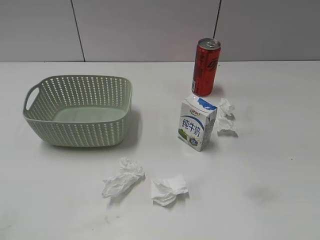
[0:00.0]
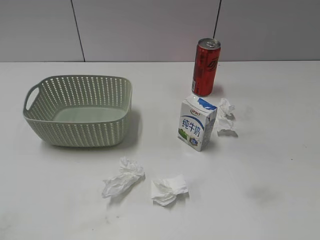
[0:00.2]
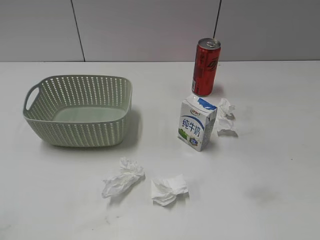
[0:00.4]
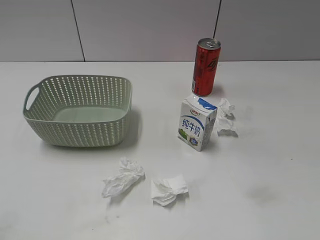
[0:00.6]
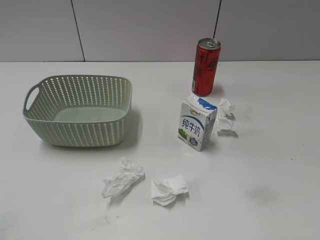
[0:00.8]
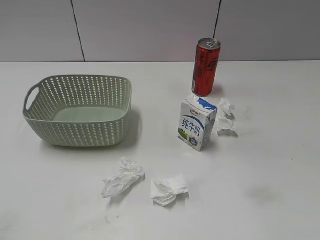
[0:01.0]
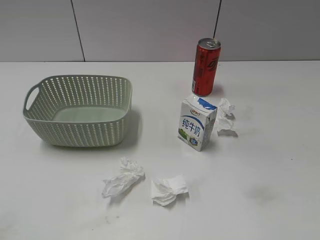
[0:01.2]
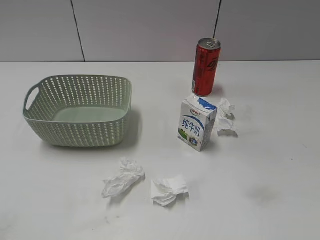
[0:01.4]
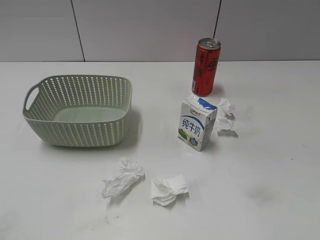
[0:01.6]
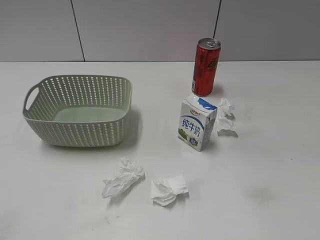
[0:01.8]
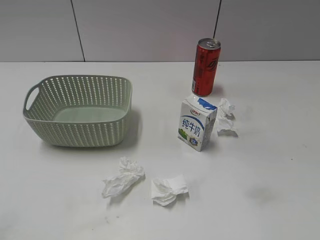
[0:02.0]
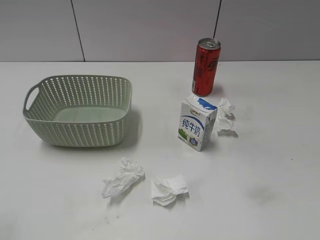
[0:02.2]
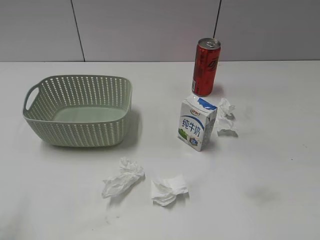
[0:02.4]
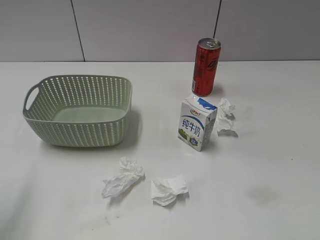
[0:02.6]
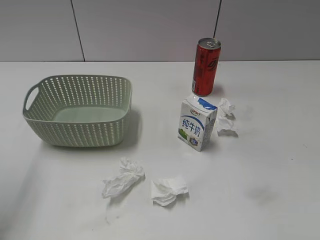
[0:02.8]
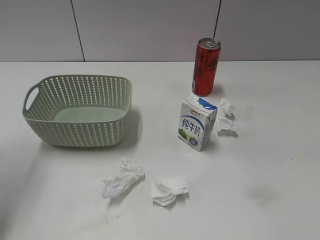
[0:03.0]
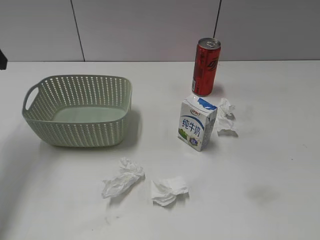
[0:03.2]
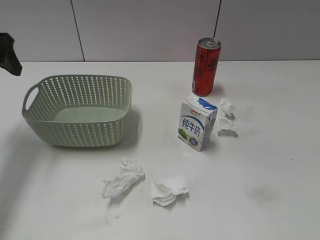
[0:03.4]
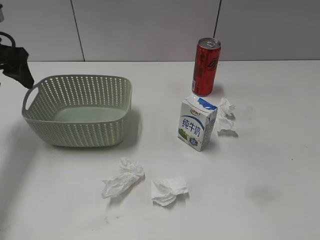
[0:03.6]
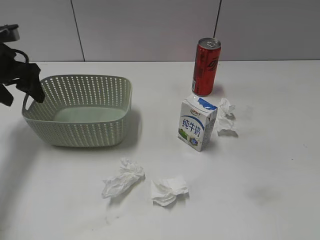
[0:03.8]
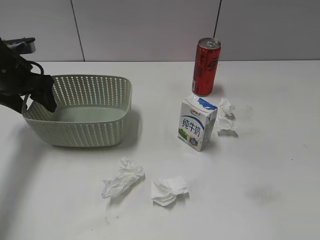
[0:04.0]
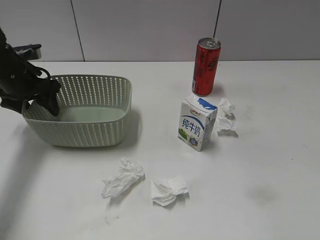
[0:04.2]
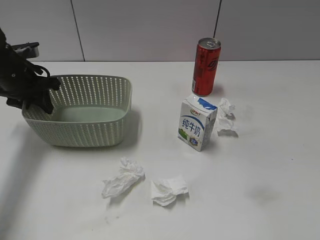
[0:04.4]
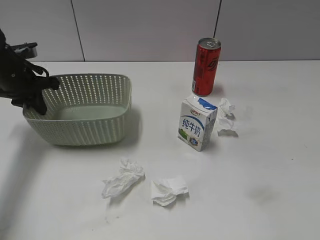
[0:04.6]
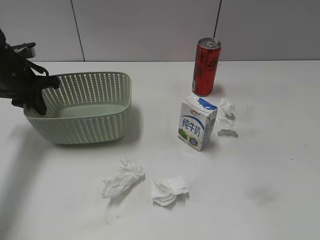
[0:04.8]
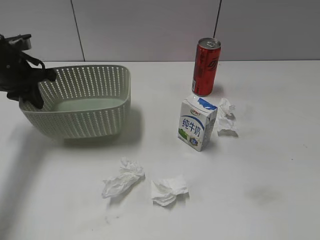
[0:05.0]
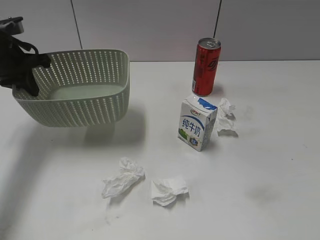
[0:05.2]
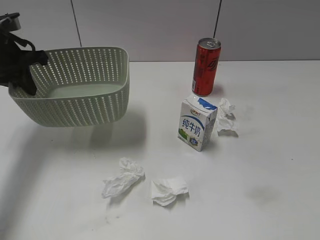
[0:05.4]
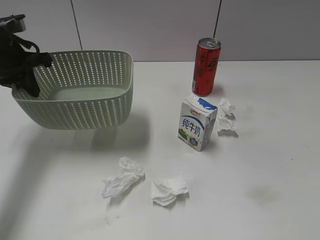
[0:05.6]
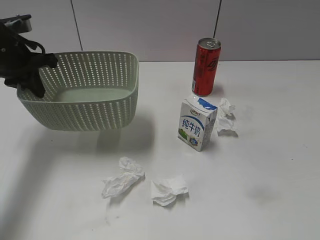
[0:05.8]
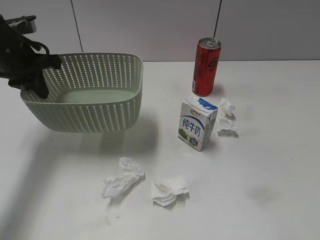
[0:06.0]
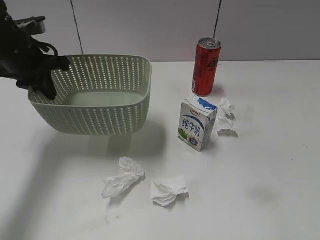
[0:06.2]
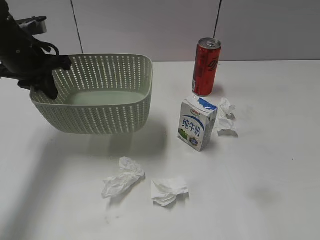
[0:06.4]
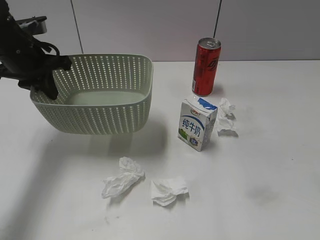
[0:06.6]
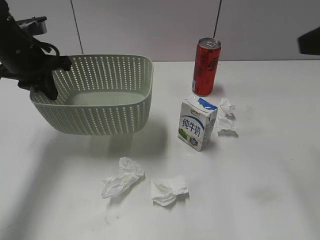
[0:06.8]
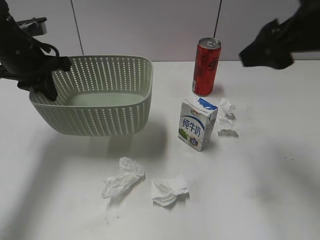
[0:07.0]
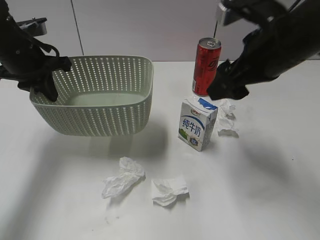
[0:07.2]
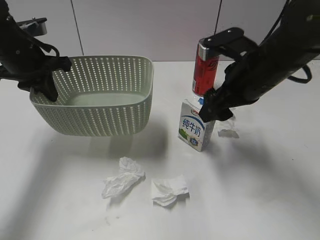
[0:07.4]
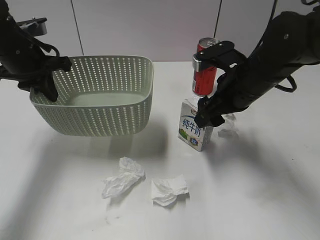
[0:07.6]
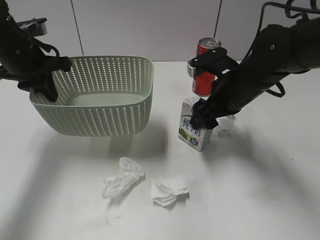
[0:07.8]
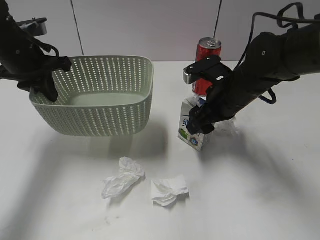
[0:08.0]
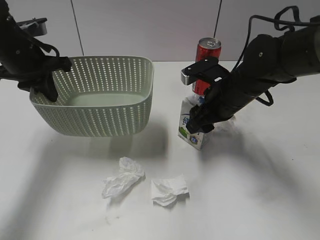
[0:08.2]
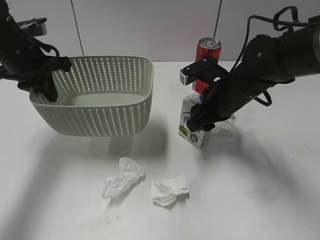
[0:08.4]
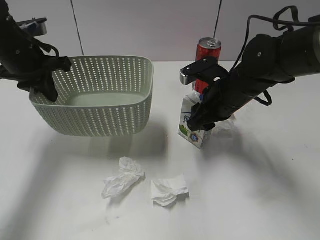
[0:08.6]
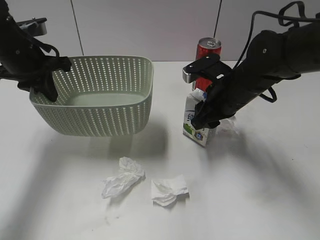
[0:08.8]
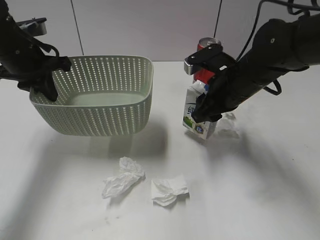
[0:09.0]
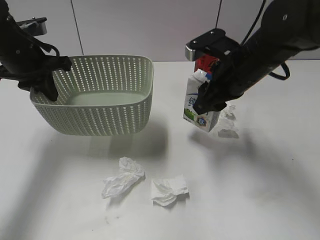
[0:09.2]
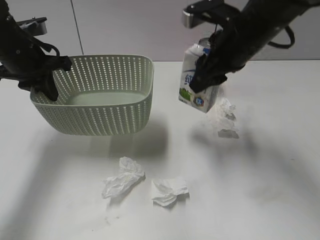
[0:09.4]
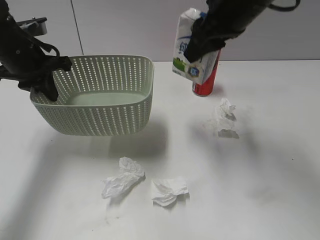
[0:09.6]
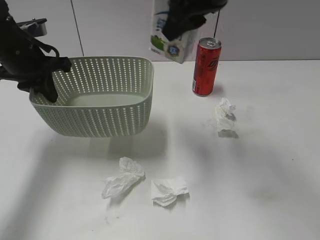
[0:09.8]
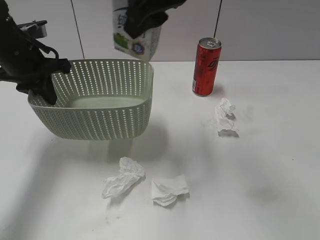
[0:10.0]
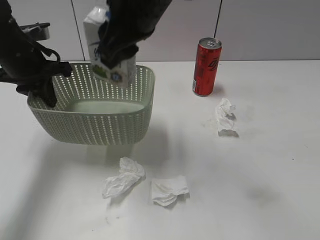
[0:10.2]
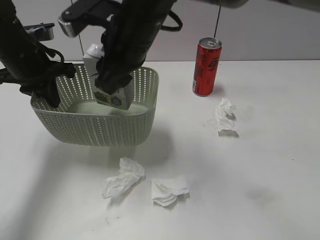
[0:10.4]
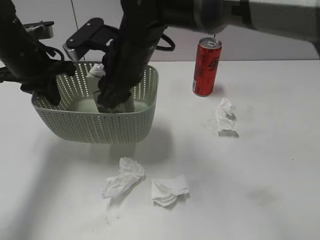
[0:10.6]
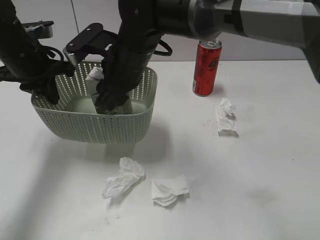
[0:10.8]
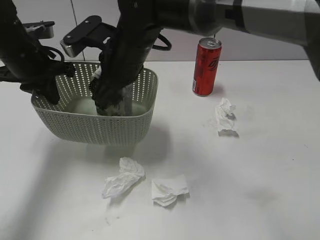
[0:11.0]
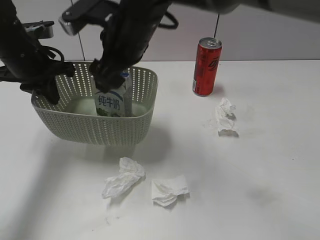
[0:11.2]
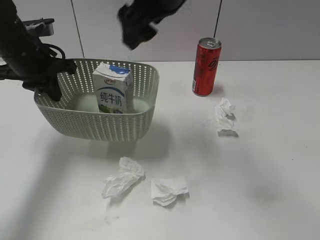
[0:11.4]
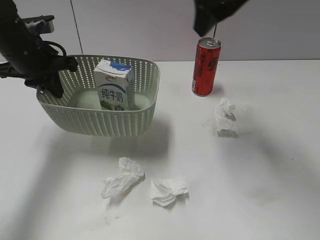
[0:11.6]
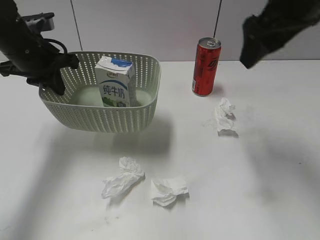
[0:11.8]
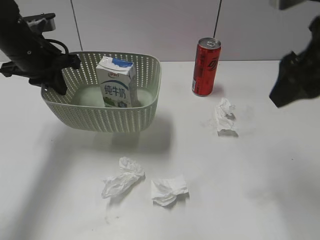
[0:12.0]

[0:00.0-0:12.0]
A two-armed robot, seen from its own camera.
Step, 0:03.2 to 0:04.6: Grasp the basket with left gripper.
Step, 0:04.8 to 0:06.2: Lift the basket with left gripper.
Step, 0:06.4 to 0:08.4: Grasp the milk with right gripper.
Step, 0:08.6 to 0:11.4: Place the milk in the basket with right gripper.
0:01.6 to 0:03.0: The left gripper is displaced forward by roughly 30 cm, and opens up.
0:03.0 to 0:04.4: The left gripper heads downward and forward, covering approximately 20 cm, and closes.
0:04.4 to 0:06.0: The right gripper ends up approximately 5 cm from where it was. Meanwhile the left gripper travels upward by roughly 5 cm.
0:06.0 to 0:07.6: The right gripper is displaced forward, to the left and downward by approximately 35 cm.
0:07.6 to 0:09.0: The right gripper closes its fingers.
0:09.0 to 0:10.4: The right gripper is displaced to the left by about 20 cm.
0:10.4 to 0:12.0: The right gripper travels to the right and backward by some 25 cm, and opens up.

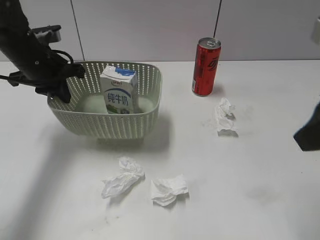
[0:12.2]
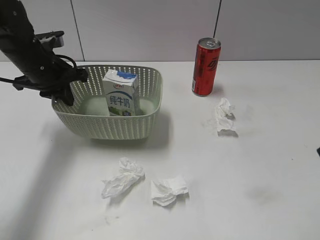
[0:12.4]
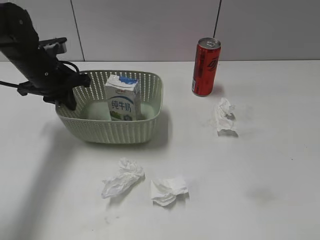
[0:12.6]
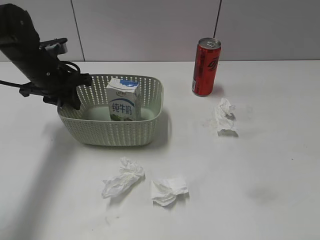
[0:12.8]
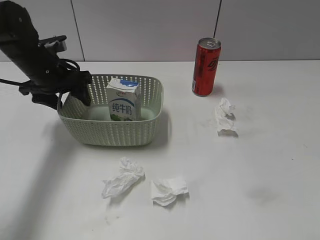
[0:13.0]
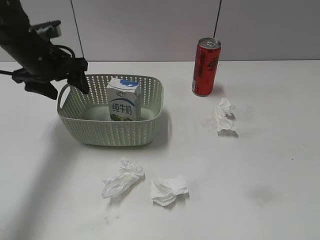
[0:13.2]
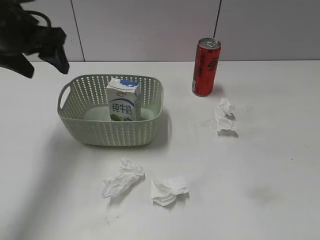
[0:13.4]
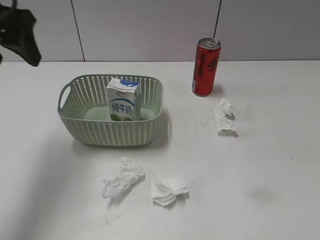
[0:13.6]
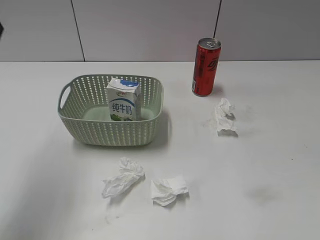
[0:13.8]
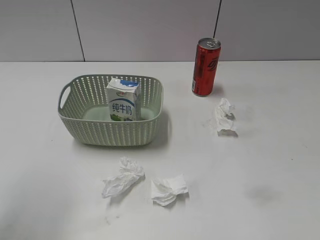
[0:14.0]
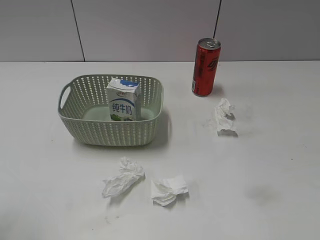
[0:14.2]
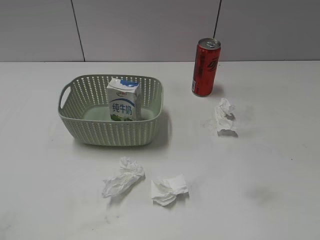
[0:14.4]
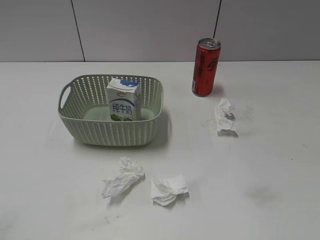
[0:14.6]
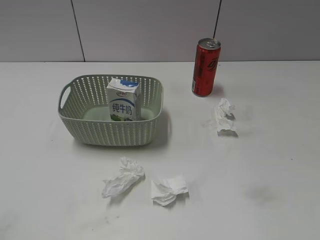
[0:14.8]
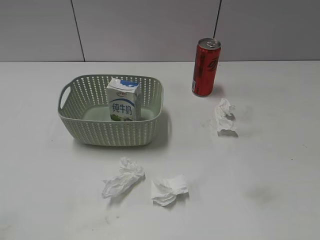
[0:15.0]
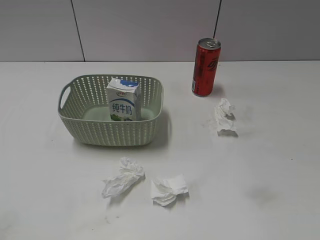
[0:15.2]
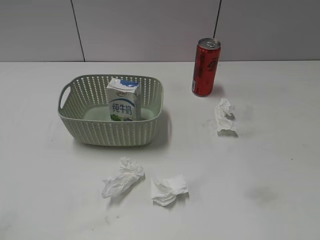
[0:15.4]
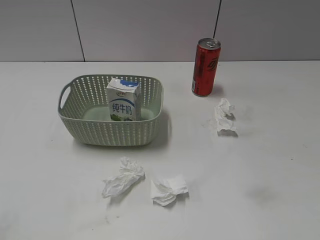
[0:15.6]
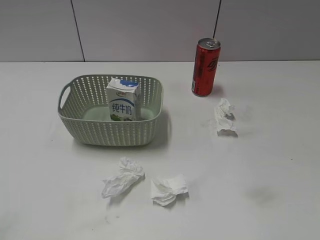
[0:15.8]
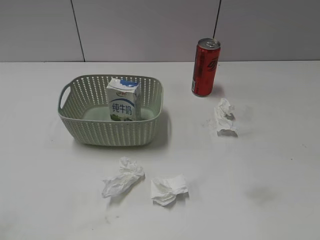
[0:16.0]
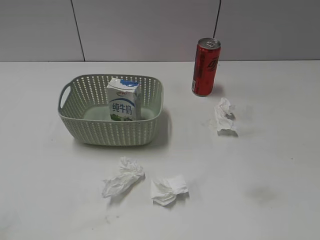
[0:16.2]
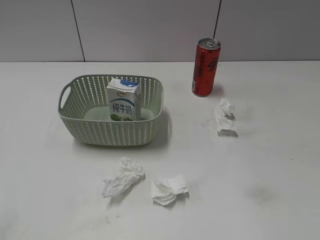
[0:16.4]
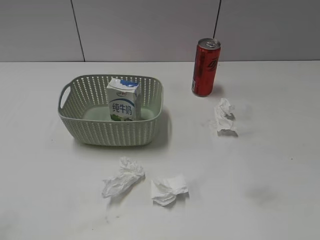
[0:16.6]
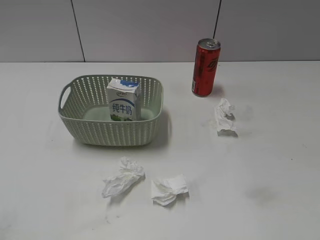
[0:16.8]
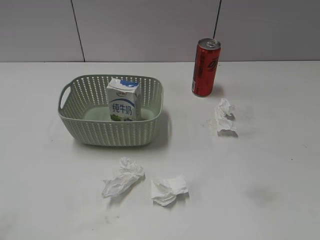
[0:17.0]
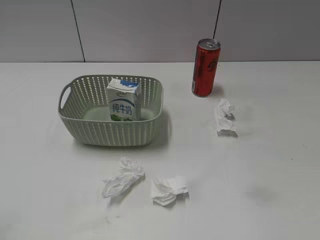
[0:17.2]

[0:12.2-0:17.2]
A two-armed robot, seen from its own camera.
Step, 0:12.2 to 0:13.2: Place the basket on the table with left gripper.
0:12.2 to 0:13.8: The right gripper moves backward, roughly 10 cm. Meanwhile the left gripper shifts approximately 25 cm upward and backward, and opens.
0:13.8 to 0:15.6: The left gripper goes about 25 cm backward and downward.

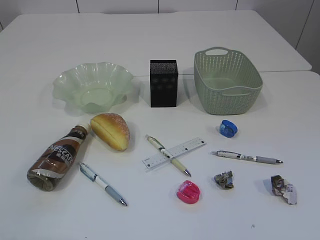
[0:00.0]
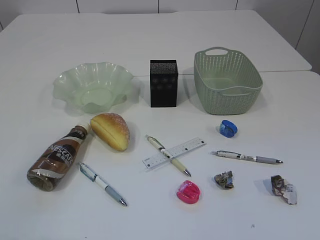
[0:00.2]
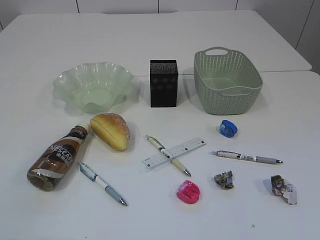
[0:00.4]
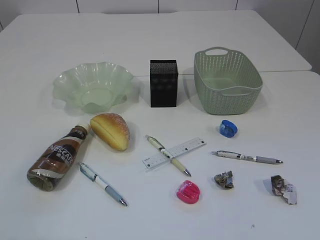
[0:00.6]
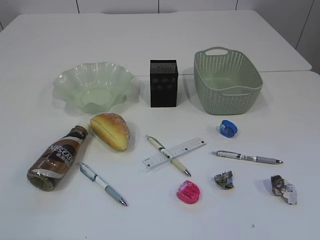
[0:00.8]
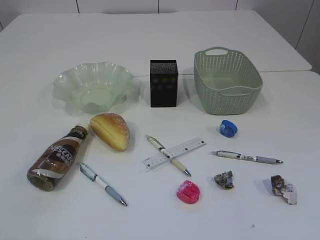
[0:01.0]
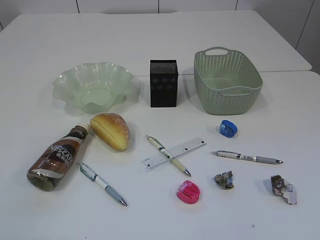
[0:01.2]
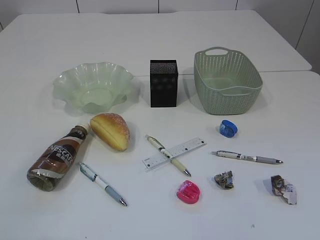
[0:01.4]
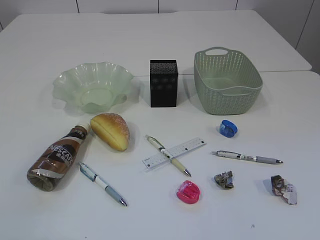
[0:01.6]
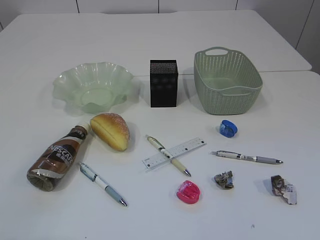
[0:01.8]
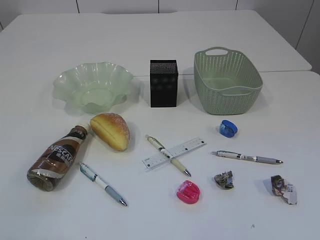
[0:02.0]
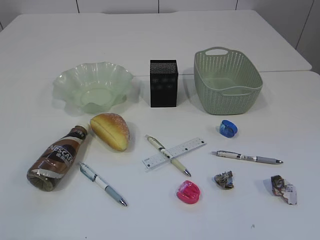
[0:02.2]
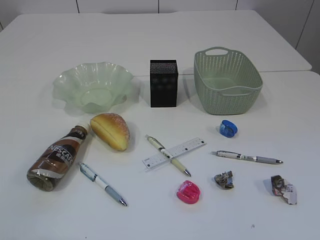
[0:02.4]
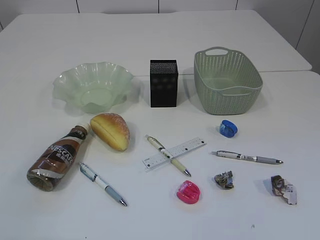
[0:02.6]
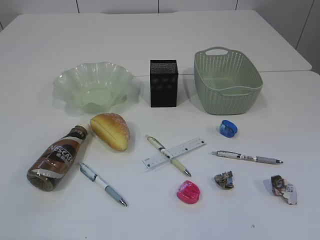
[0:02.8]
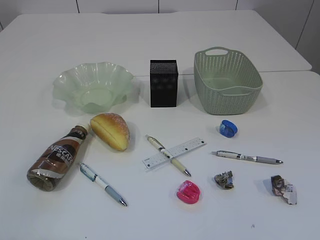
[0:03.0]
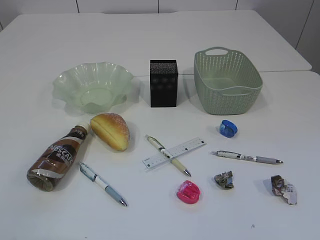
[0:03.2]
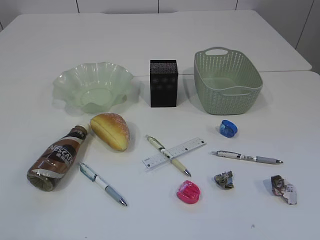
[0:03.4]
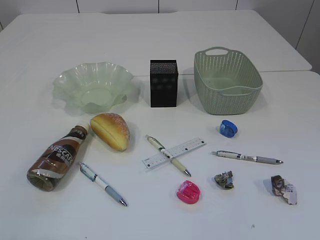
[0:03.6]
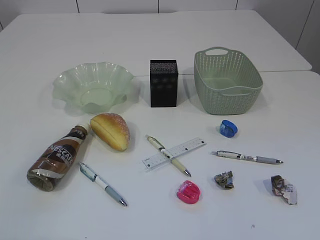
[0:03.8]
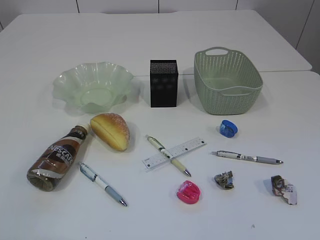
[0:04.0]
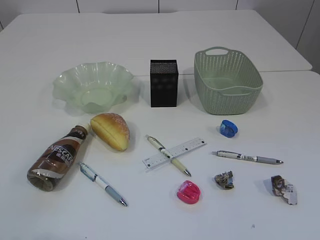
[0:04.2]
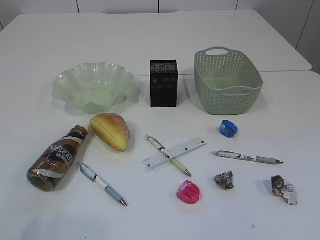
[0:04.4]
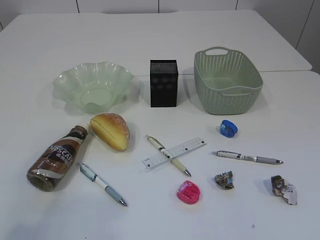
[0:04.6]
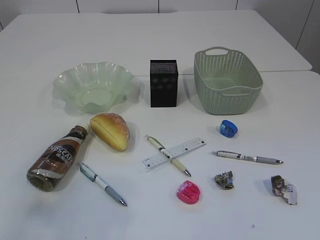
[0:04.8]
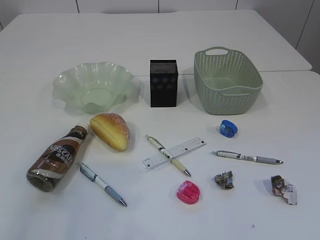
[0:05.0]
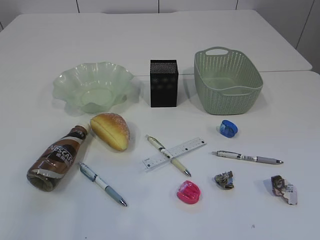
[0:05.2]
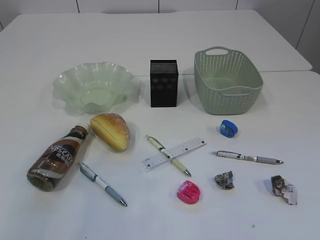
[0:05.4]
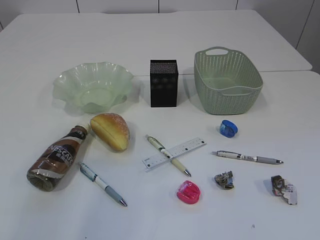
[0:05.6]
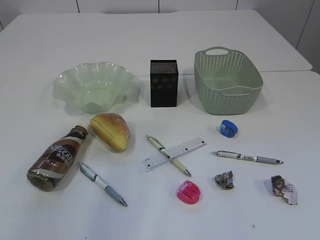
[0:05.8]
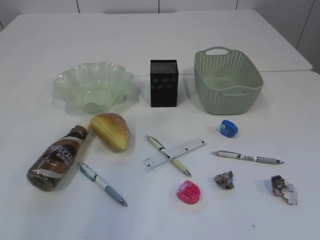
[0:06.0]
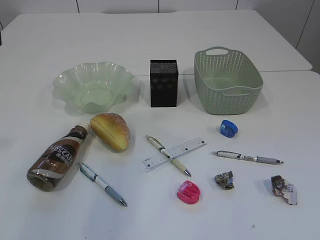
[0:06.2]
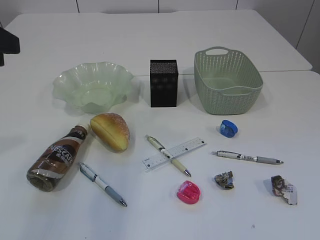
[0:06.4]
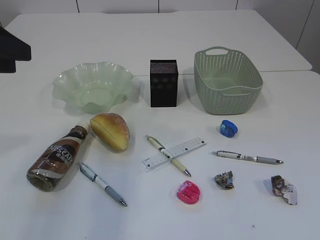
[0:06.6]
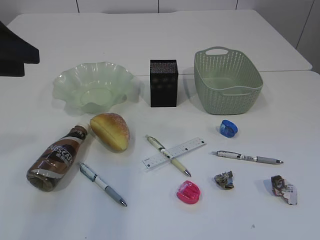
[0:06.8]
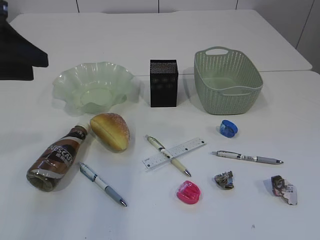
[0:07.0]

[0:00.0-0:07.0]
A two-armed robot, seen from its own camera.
0:01.4 to 0:04.2: Neither gripper changes place.
0:05.6 to 0:07.0: The left gripper heads forward and downward, covering approximately 15 cm.
